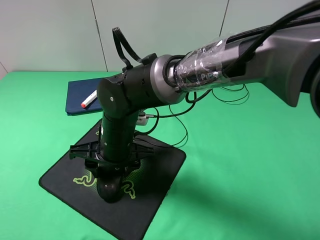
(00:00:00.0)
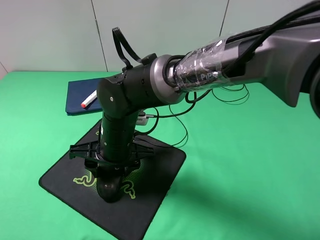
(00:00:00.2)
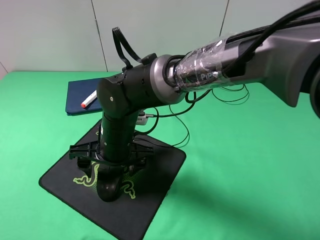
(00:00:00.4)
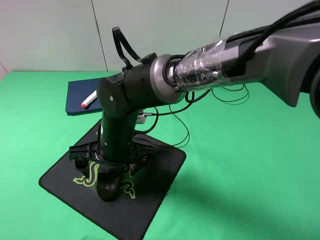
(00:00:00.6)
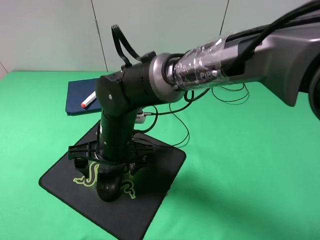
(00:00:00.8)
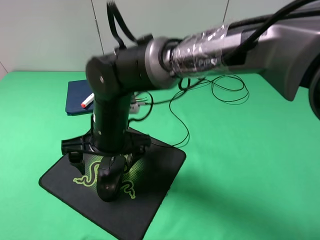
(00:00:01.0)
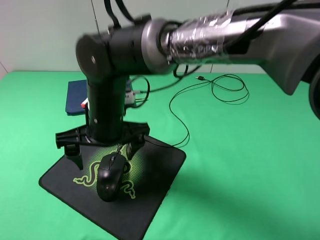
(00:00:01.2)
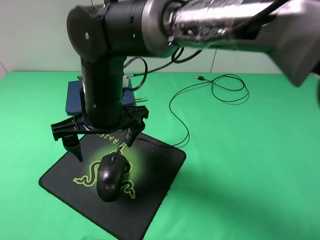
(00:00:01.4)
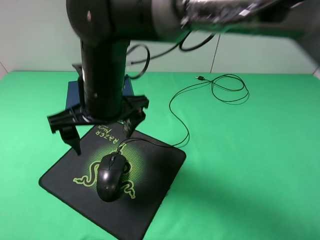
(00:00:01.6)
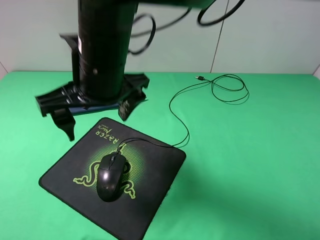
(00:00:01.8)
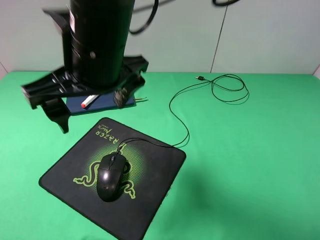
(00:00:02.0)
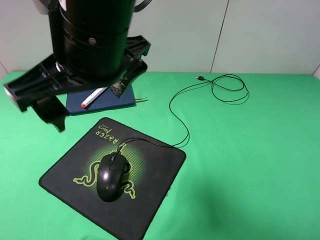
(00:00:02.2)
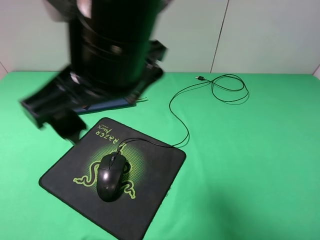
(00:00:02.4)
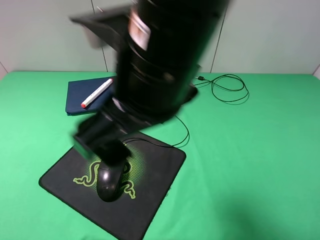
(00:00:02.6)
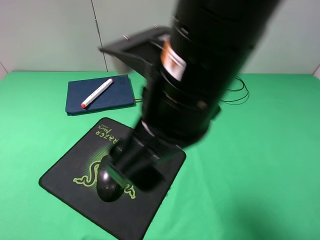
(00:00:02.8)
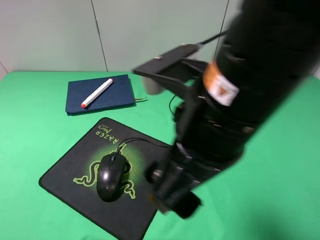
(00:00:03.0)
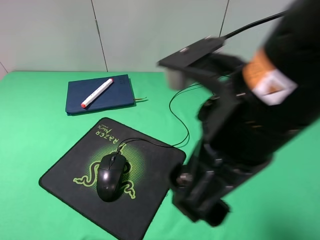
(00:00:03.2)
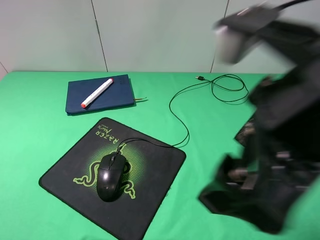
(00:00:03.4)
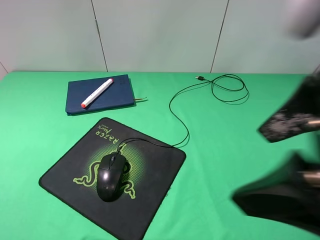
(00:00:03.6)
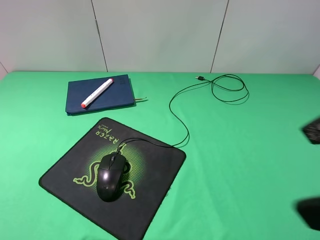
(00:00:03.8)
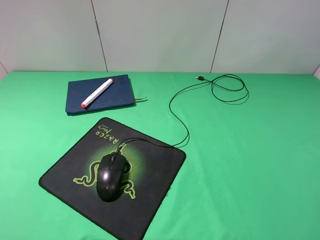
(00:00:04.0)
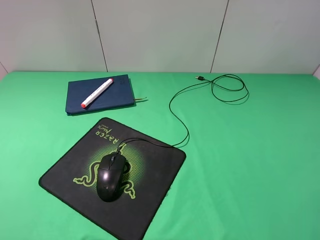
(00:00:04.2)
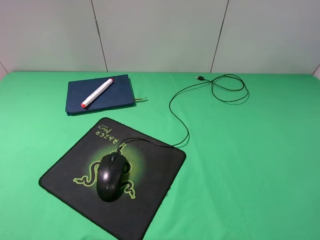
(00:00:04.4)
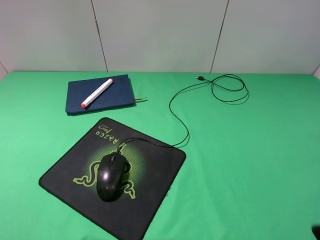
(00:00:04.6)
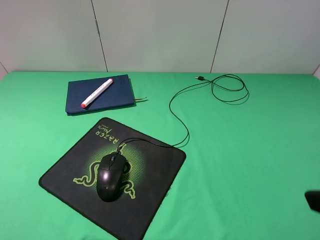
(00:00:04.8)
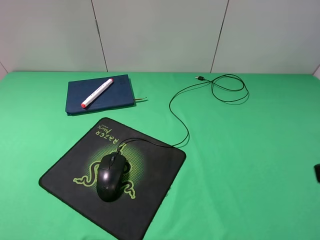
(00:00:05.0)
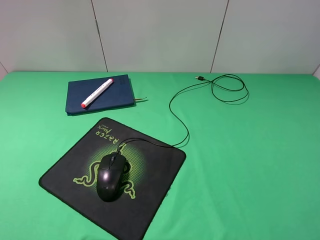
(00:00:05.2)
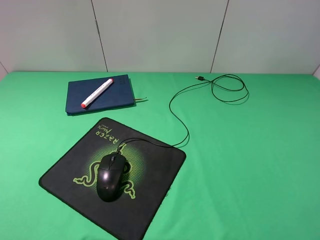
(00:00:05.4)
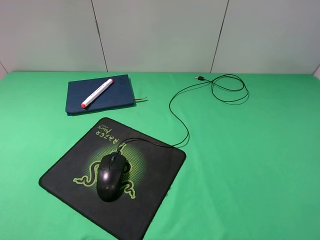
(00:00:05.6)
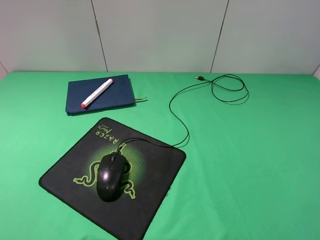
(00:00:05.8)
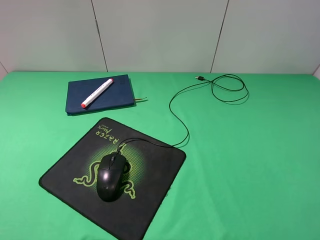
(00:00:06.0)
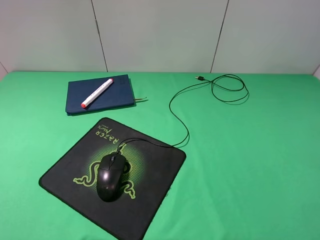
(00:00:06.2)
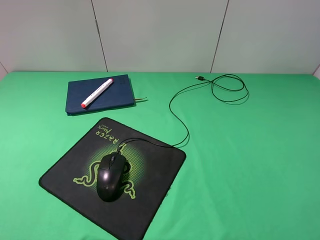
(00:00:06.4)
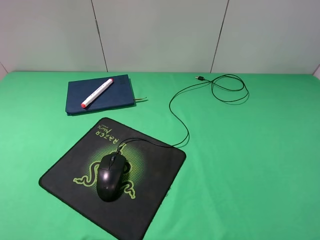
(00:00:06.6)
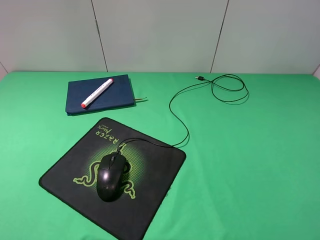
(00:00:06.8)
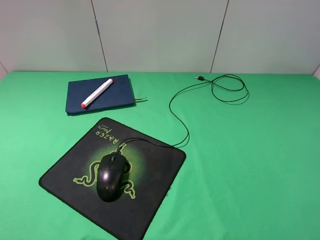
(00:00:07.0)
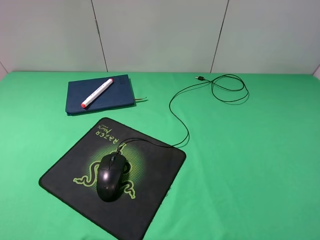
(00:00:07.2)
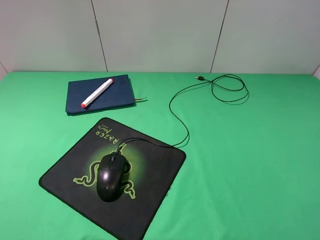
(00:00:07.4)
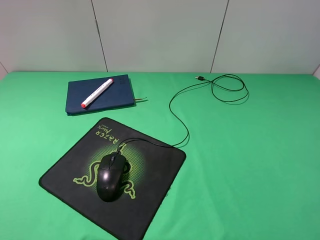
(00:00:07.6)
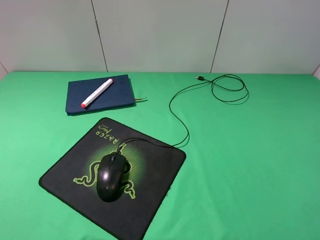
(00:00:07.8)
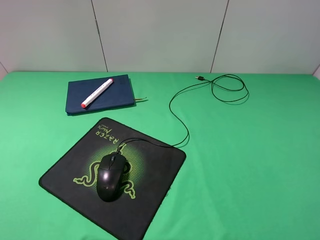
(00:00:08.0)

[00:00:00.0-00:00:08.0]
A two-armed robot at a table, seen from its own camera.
00:00:00.0 to 00:00:01.6: The right gripper shifts approximately 10 cm upward, and opens up.
00:00:01.6 to 00:00:03.2: The right gripper moves to the right, backward and upward, about 20 cm.
00:00:03.2 to 00:00:04.8: The right gripper shifts some 20 cm to the right.
00:00:06.4 to 00:00:08.0: Neither gripper changes place.
